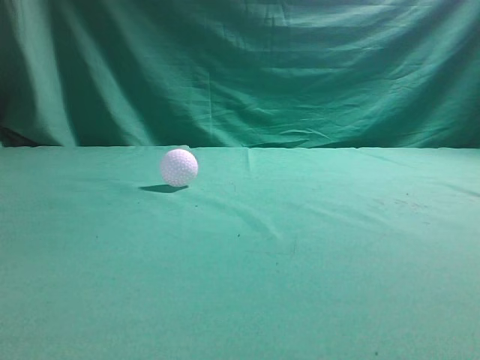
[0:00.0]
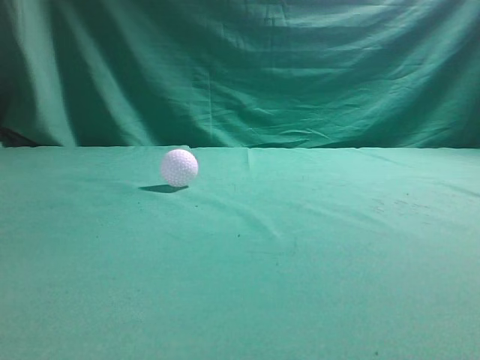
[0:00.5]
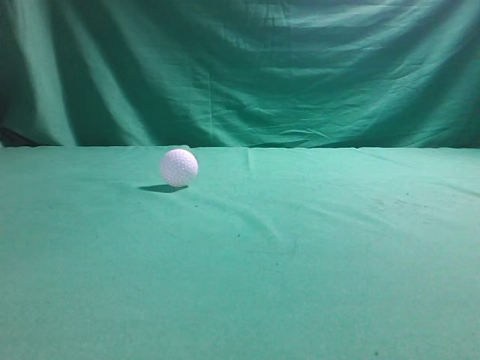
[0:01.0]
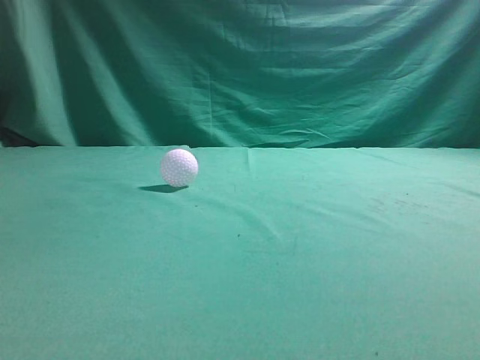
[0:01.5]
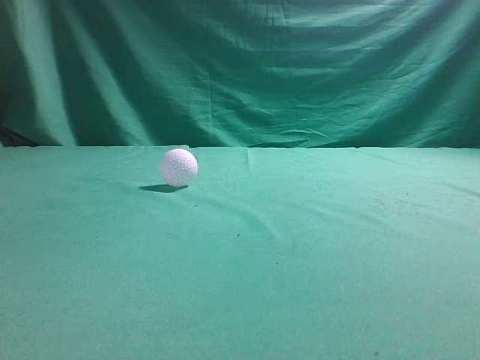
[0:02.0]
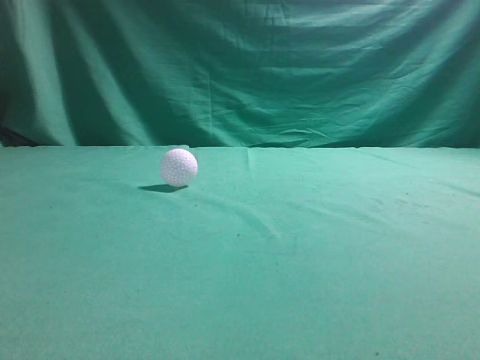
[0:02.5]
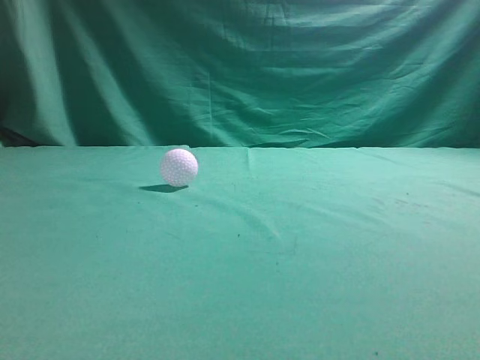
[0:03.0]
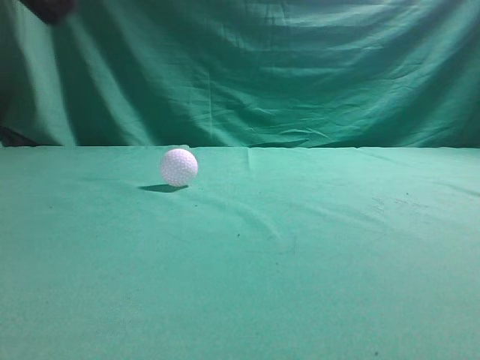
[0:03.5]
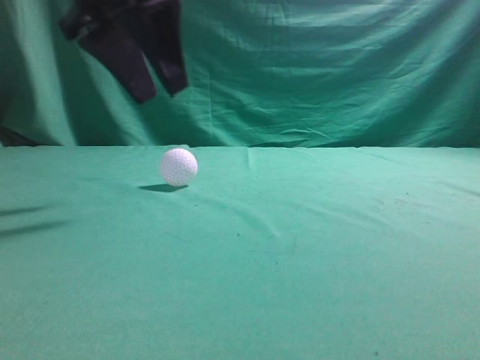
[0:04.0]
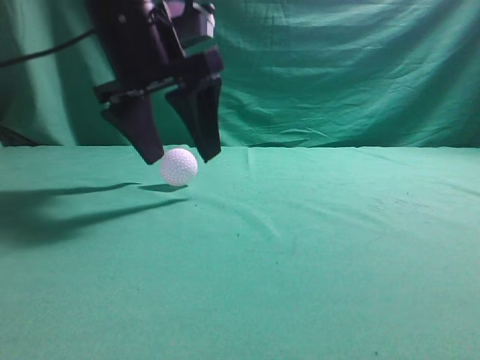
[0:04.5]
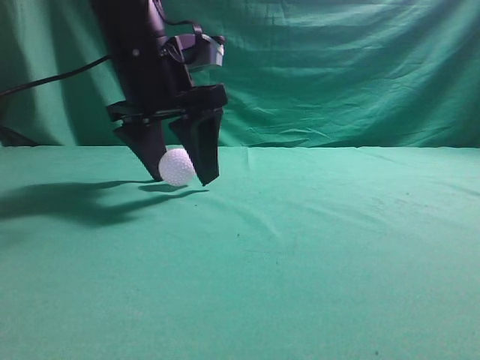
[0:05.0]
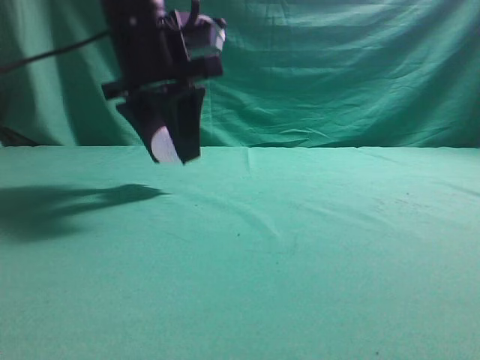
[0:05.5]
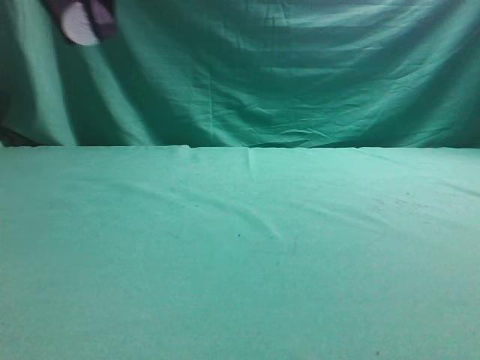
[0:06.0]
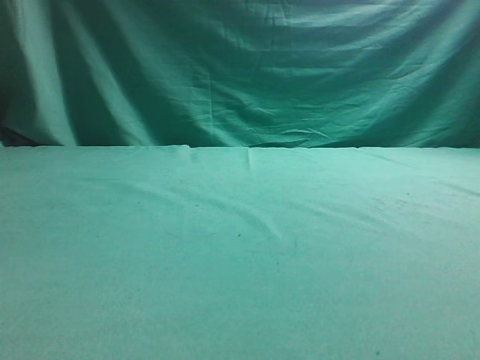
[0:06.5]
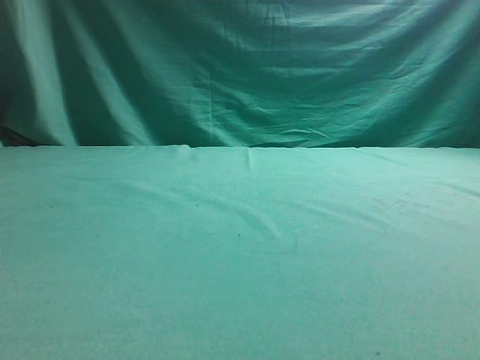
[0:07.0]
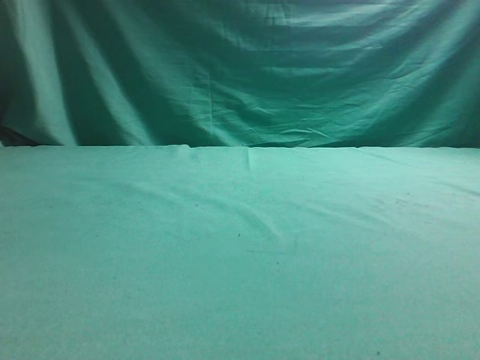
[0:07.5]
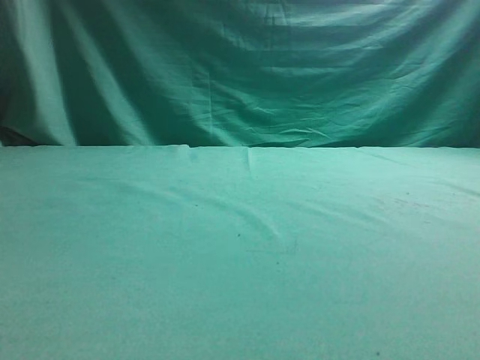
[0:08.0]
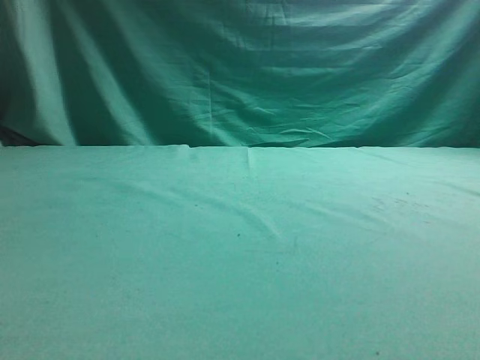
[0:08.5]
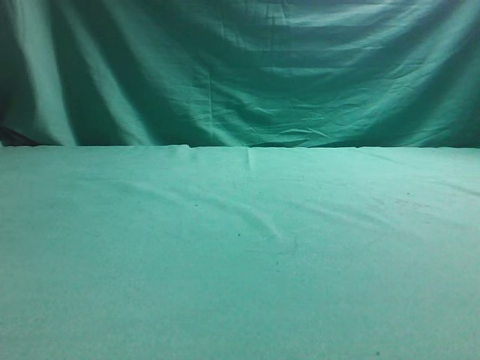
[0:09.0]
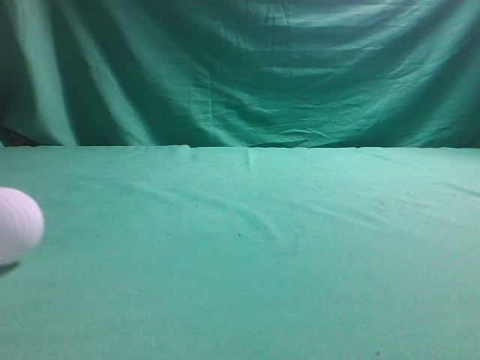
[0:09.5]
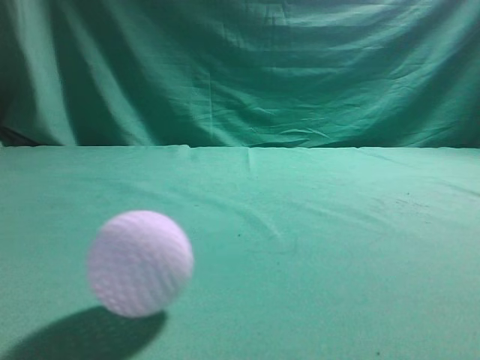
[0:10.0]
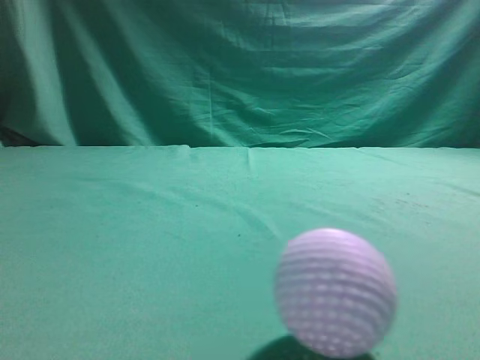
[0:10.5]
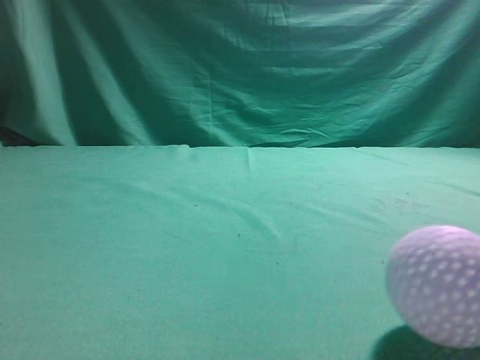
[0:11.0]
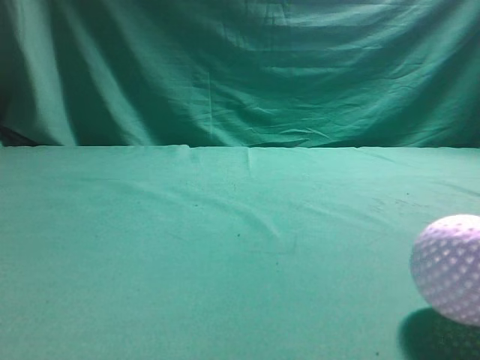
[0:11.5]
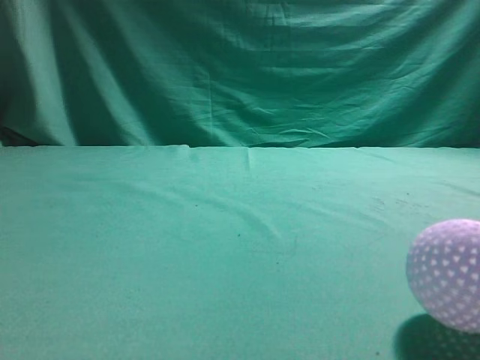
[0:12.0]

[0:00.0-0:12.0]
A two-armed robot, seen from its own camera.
Task of the whole recording: pick up the ball and place it on the plate, then pick up the ball from the plate and put it in the center of the table.
Step, 0:00.0 to 0:05.0: Grab the spherical object with your left arm.
Step, 0:05.5 to 0:09.0: Place the sphere on the white object.
0:02.0 to 0:04.0: The left gripper goes about 30 cm forward and to the right, and opens up.
0:04.0 to 0:06.0: The left gripper is displaced upward and to the left by approximately 10 cm, and opens and closes again.
0:06.0 to 0:08.0: The left gripper is displaced to the left and downward by about 25 cm.
0:08.0 to 0:10.0: The left gripper moves upward, to the right and backward, approximately 25 cm, and closes, while the right gripper moves roughly 5 cm.
0:10.0 to 0:12.0: The right gripper heads to the left, covering some 15 cm. Meanwhile the left gripper shifts some 15 cm backward and downward.

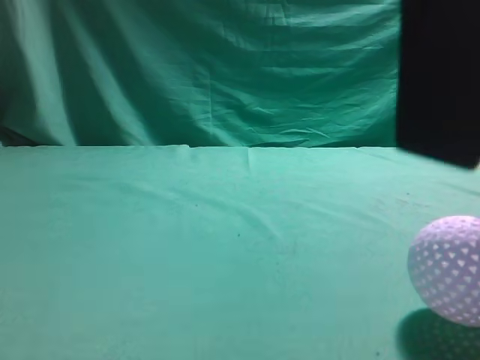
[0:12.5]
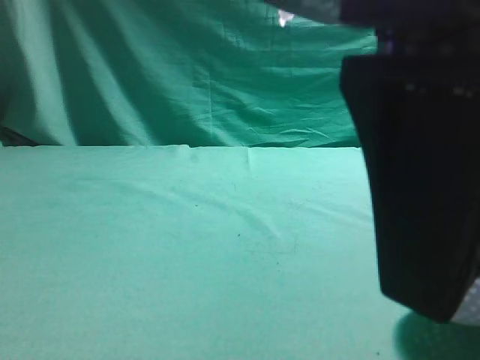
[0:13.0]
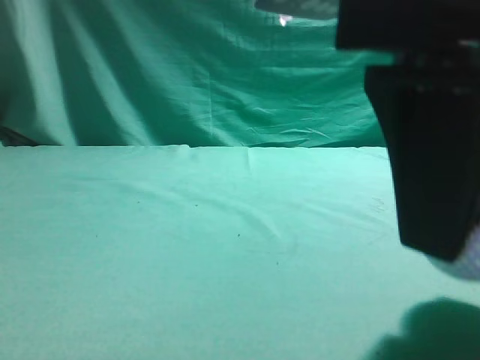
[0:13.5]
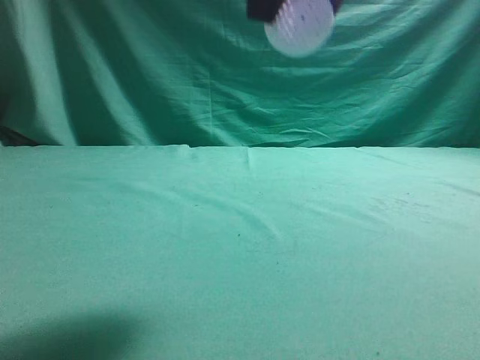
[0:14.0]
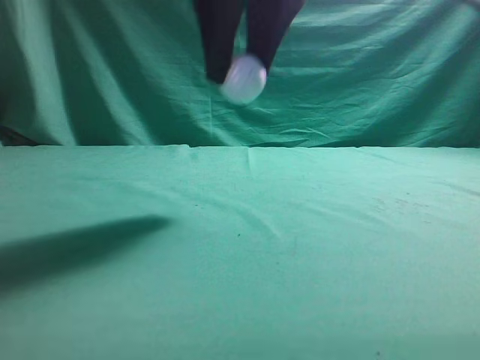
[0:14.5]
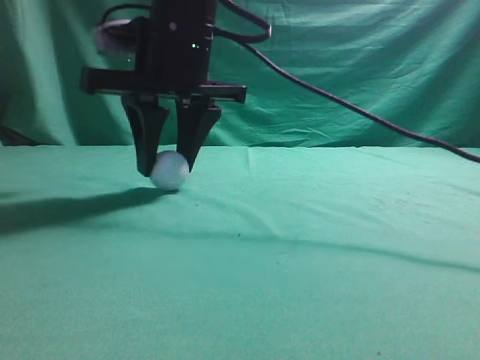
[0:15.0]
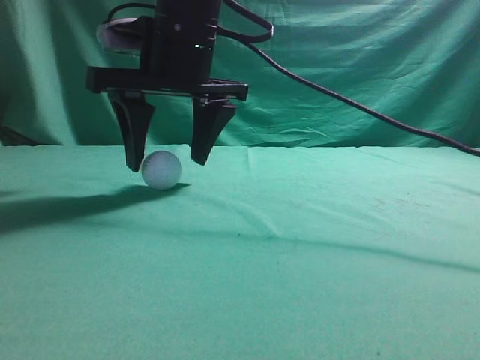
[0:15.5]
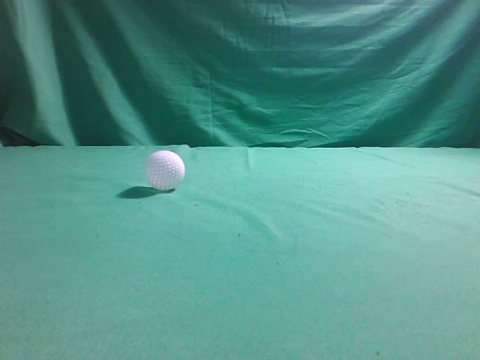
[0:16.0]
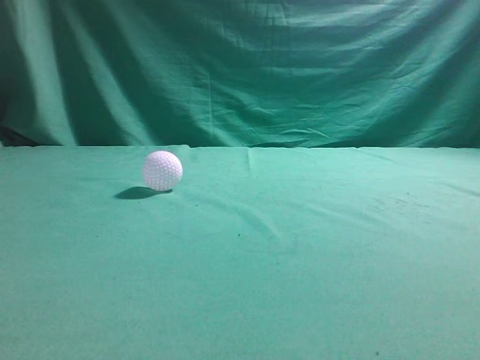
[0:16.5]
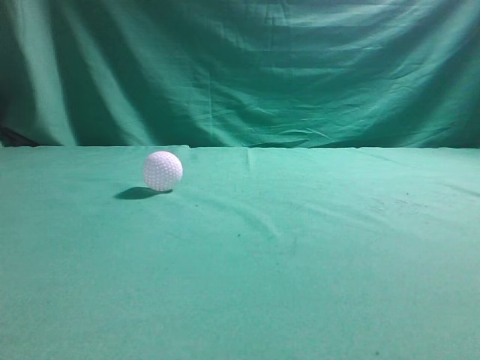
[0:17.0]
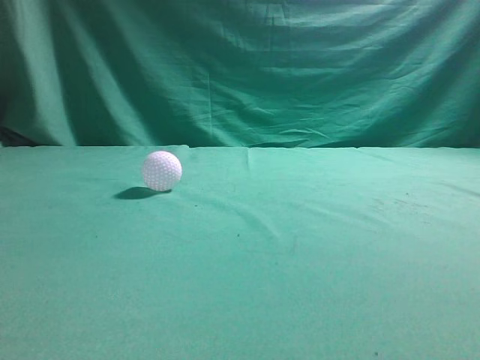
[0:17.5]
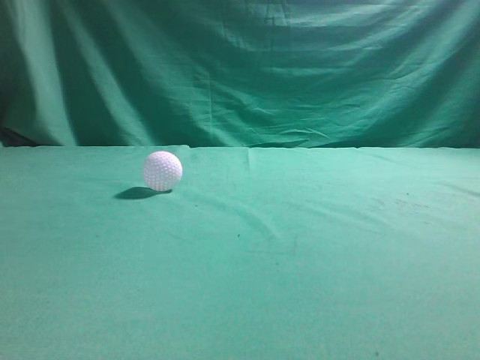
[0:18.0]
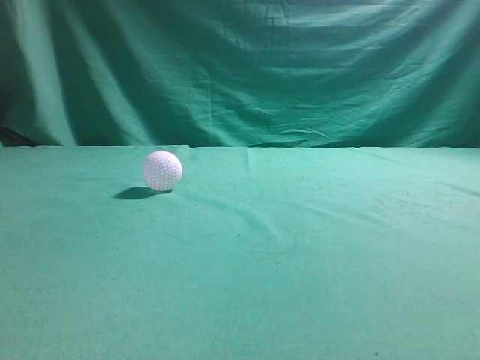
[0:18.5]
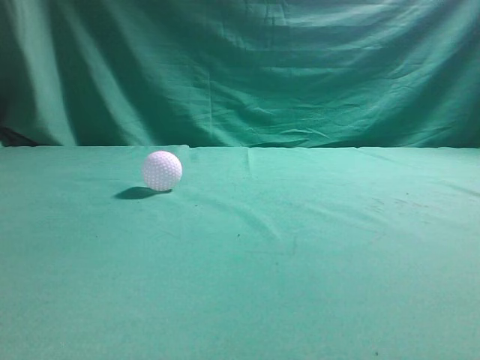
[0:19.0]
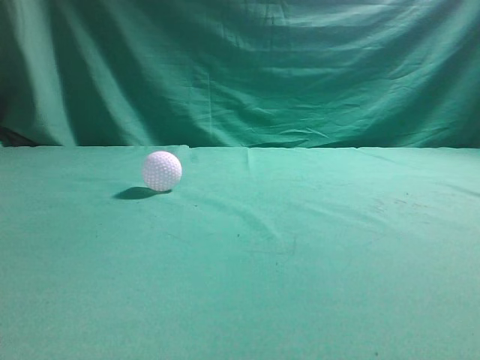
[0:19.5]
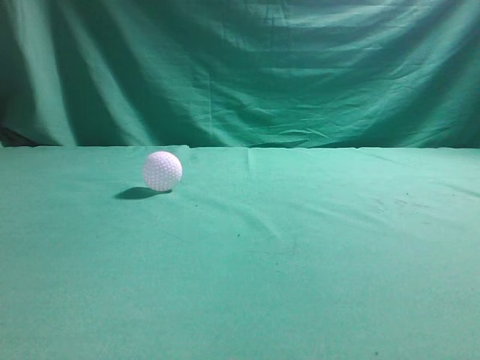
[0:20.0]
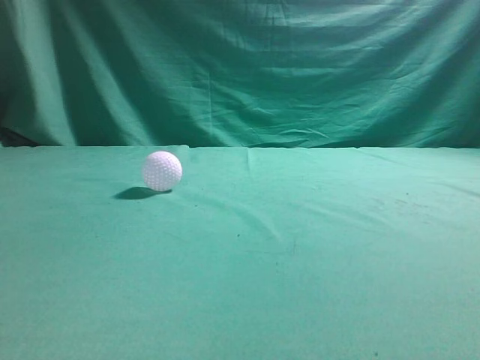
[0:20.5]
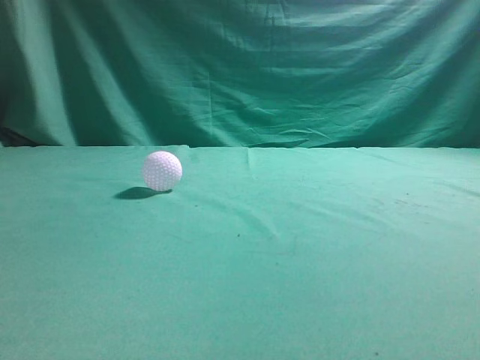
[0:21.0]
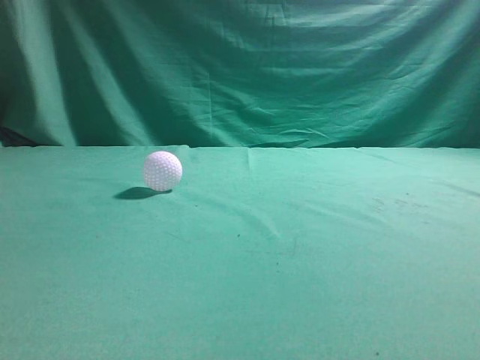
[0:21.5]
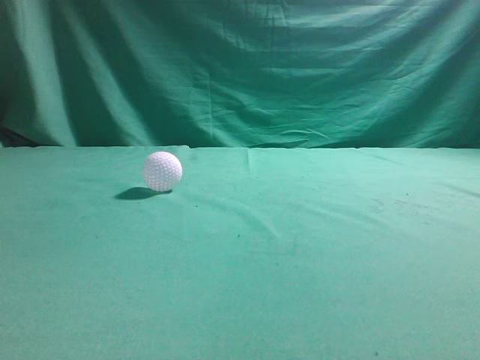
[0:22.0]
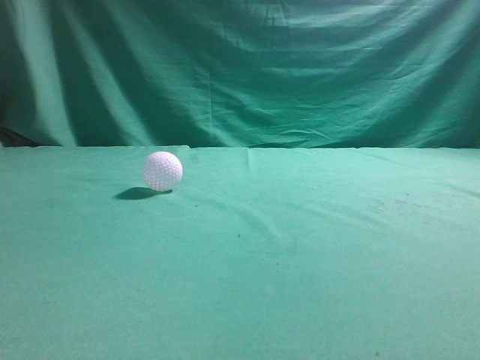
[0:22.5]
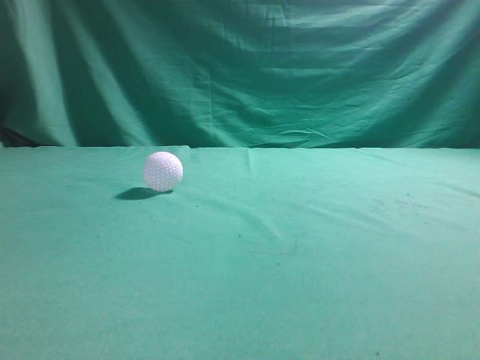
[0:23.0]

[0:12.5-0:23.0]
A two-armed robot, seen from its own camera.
Task of the whole recording: pick up the ball and place it on the plate, then pick up the ball from the plate and put it in the center of the table.
Step, 0:14.0 to 0:15.5: Put the picked-up object on the table.
0:12.5 to 0:14.5: The right gripper heads forward and to the left, covering about 20 cm, and closes up.
0:14.5 to 0:16.5: The right gripper heads upward, covering approximately 20 cm, and closes its fingers.

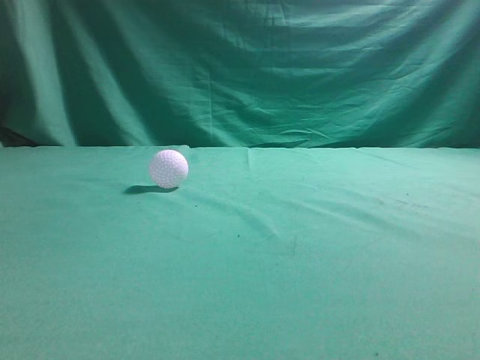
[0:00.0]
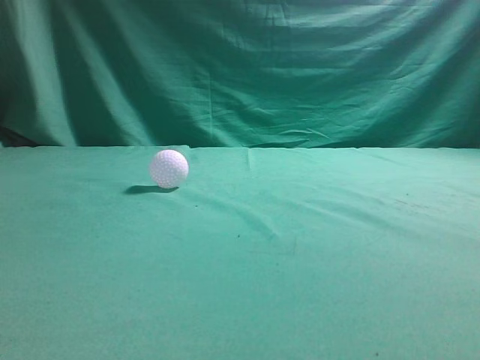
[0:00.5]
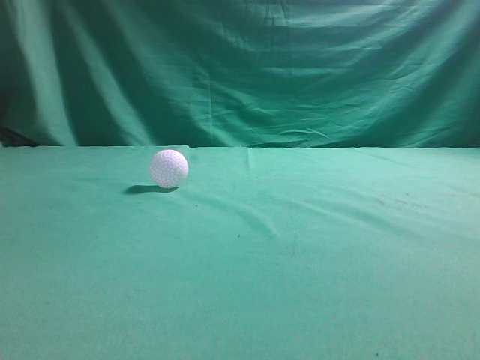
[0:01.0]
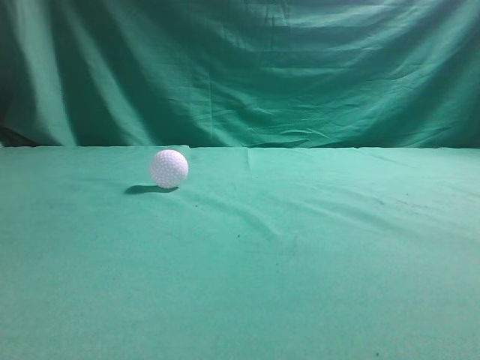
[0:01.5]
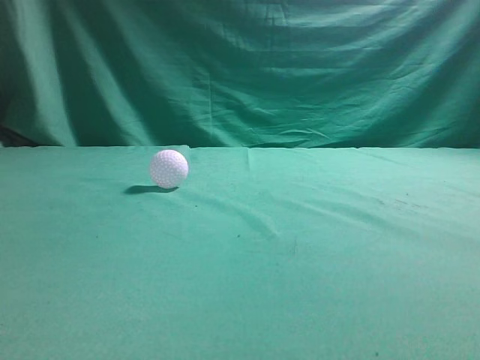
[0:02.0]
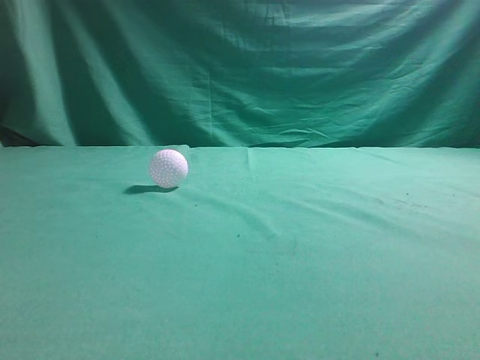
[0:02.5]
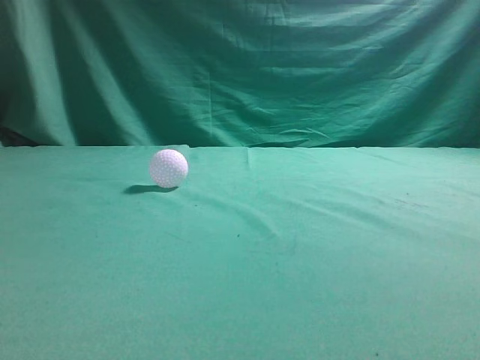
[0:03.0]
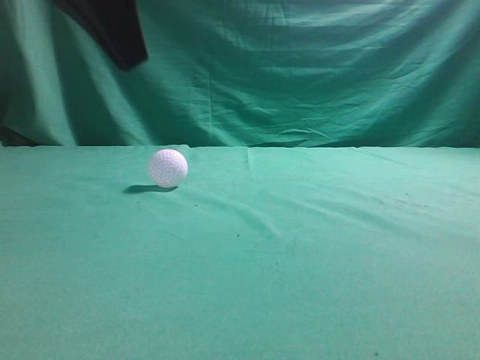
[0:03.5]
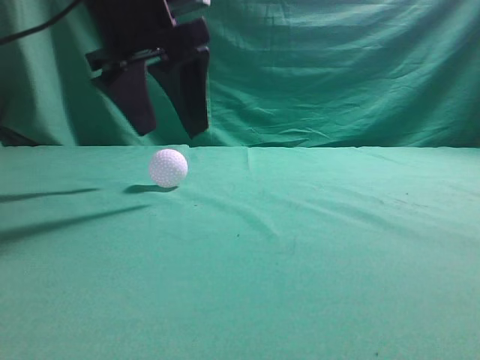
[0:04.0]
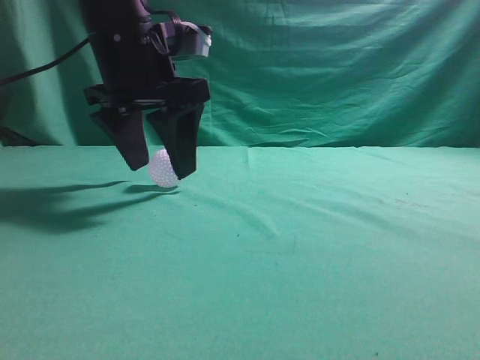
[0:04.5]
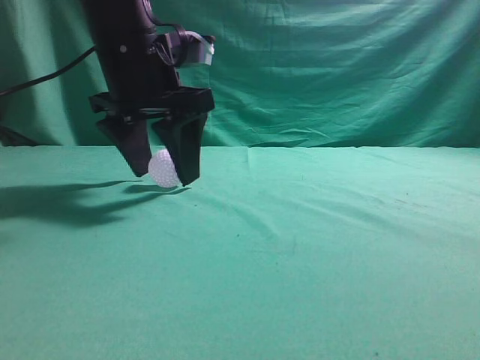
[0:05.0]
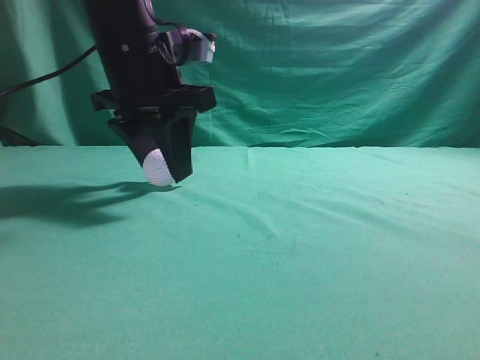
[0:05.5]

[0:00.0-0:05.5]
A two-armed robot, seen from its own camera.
Task of the whole recording: pick up the ball and place it on the plate, then pick up the ball from the plate and put it in the center of the table.
0:02.0 to 0:03.5: The left gripper travels forward and to the right by some 30 cm.
0:03.5 to 0:05.5: The left gripper shifts approximately 15 cm downward and forward, and opens.
